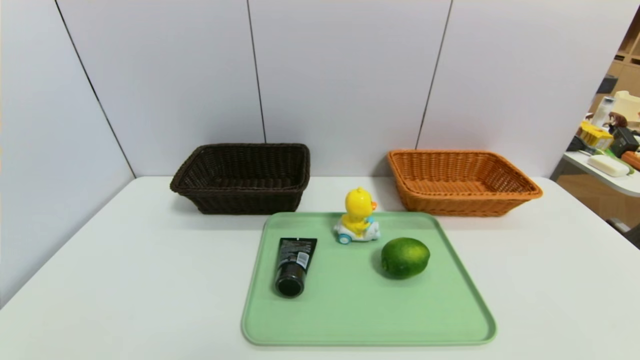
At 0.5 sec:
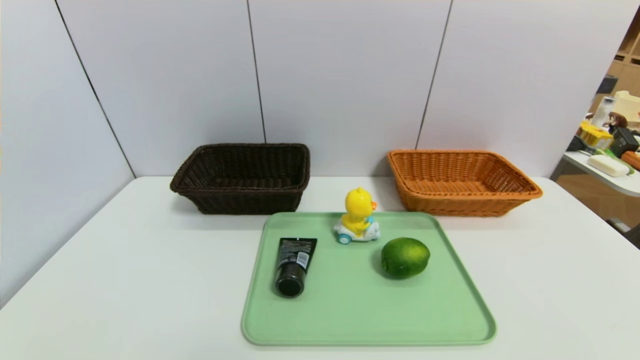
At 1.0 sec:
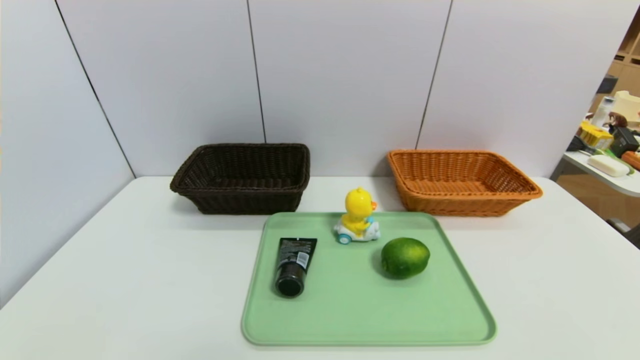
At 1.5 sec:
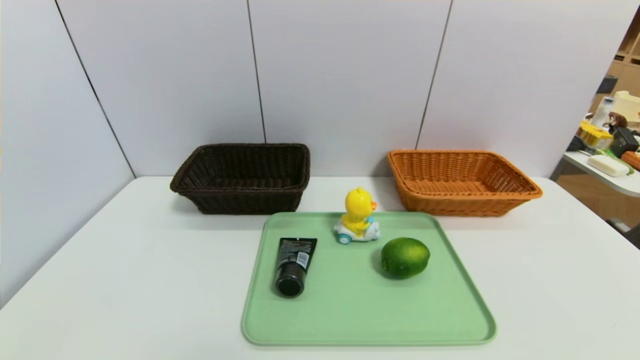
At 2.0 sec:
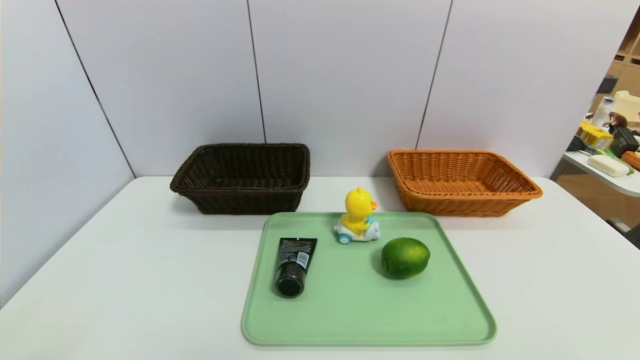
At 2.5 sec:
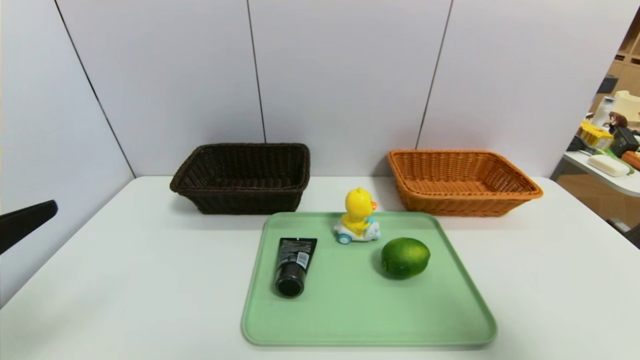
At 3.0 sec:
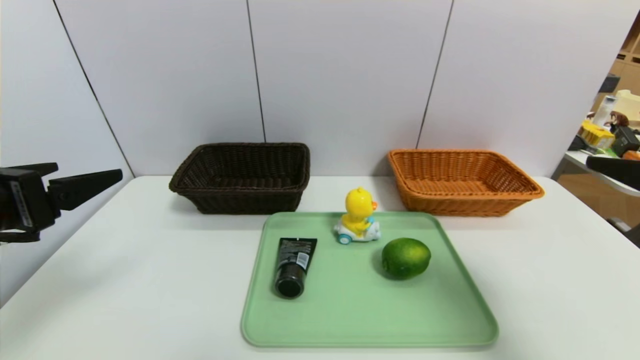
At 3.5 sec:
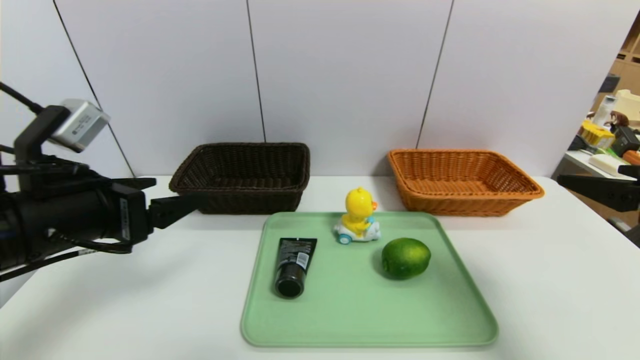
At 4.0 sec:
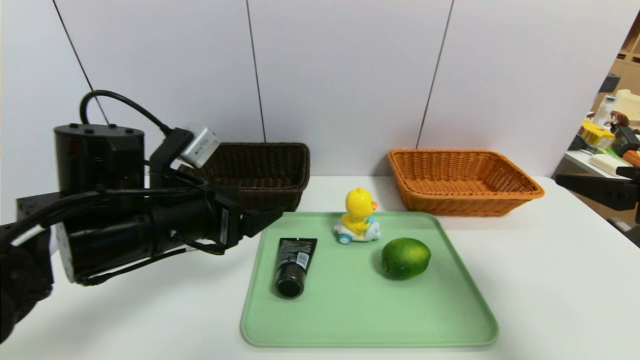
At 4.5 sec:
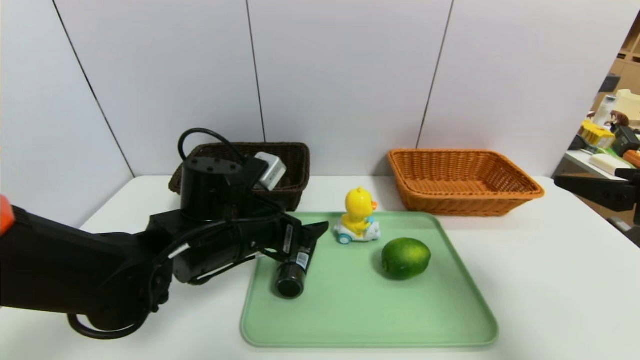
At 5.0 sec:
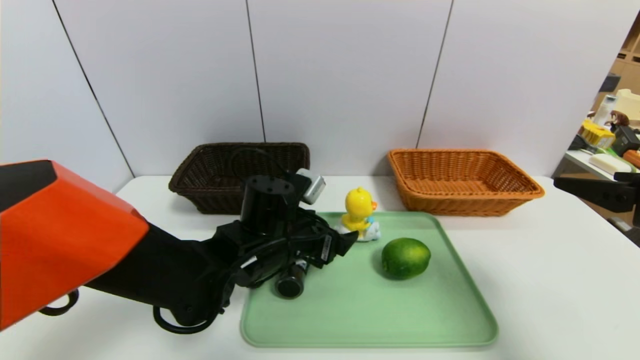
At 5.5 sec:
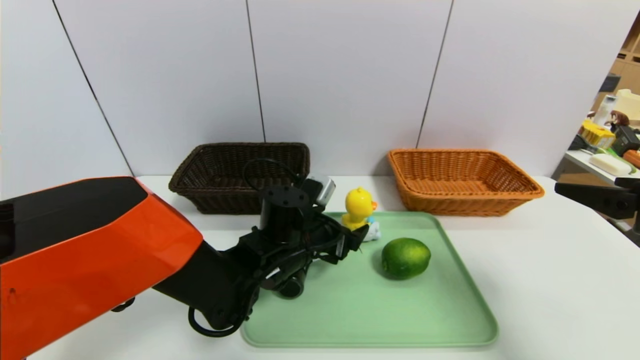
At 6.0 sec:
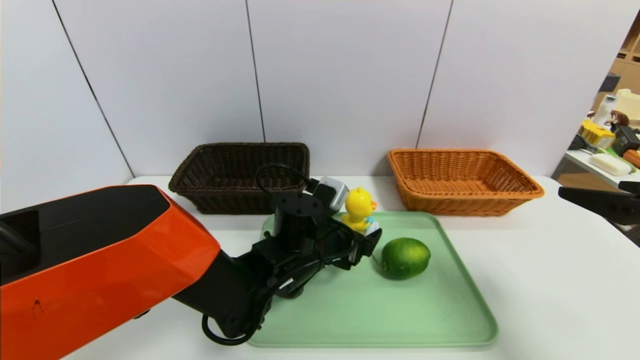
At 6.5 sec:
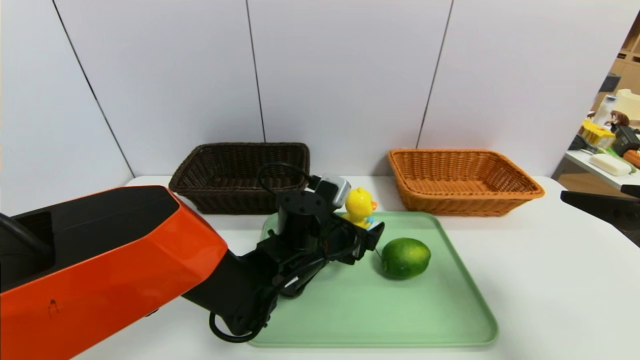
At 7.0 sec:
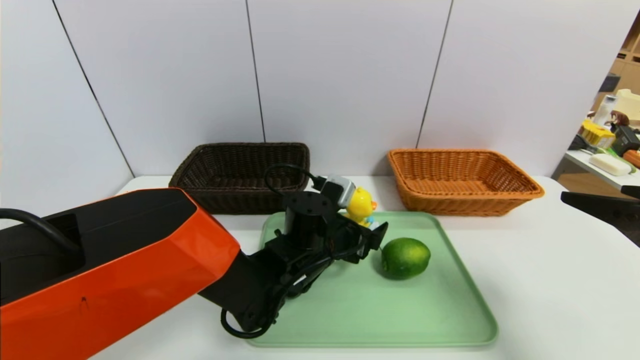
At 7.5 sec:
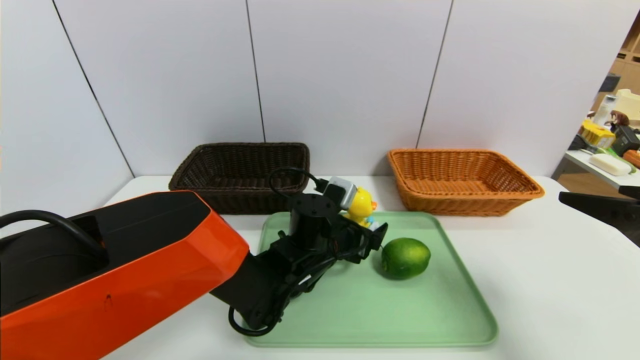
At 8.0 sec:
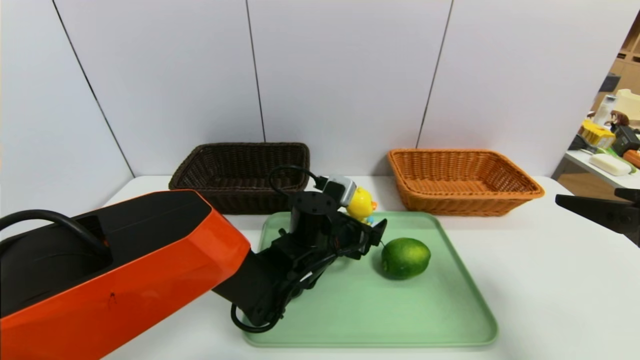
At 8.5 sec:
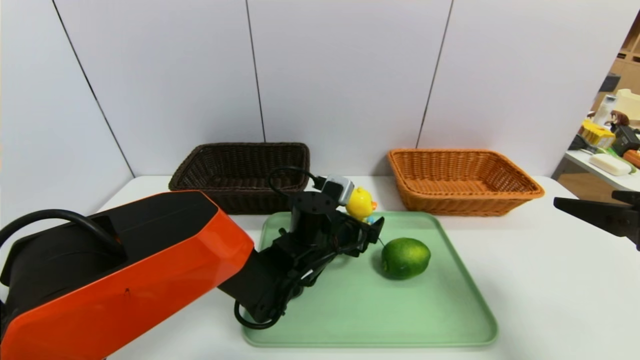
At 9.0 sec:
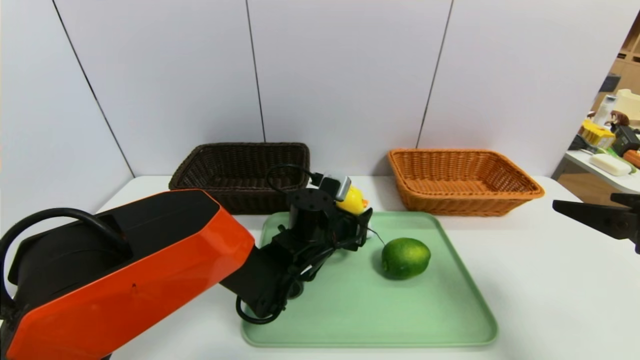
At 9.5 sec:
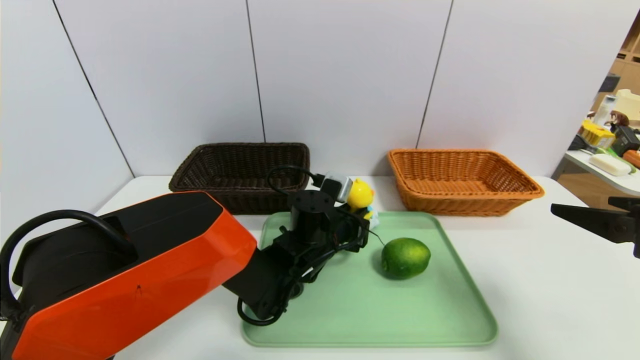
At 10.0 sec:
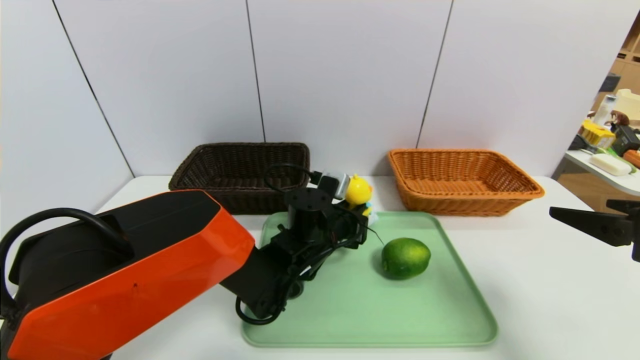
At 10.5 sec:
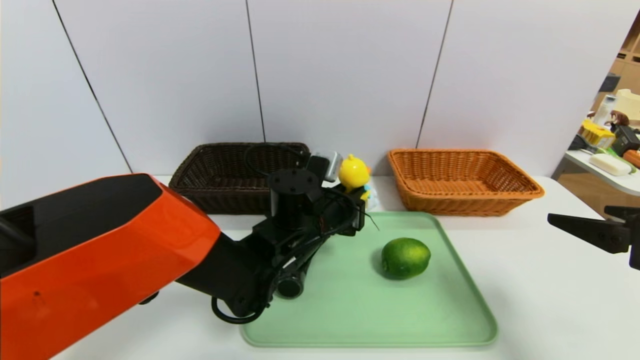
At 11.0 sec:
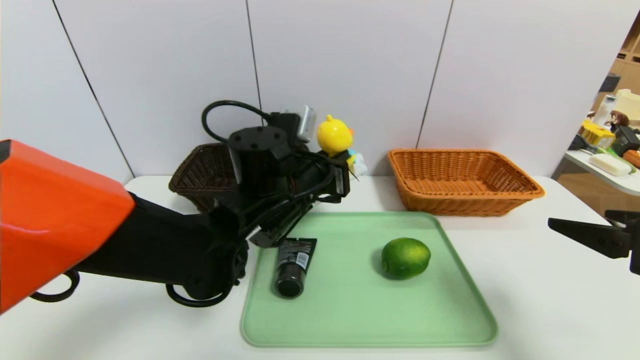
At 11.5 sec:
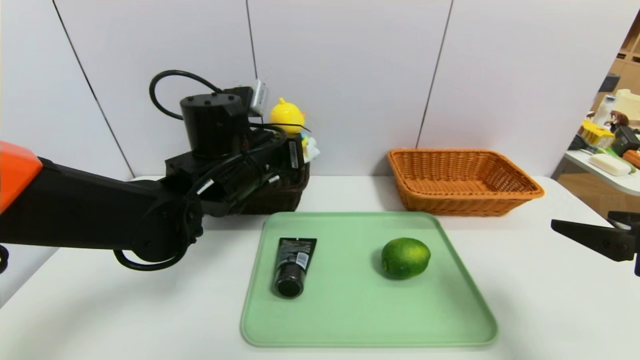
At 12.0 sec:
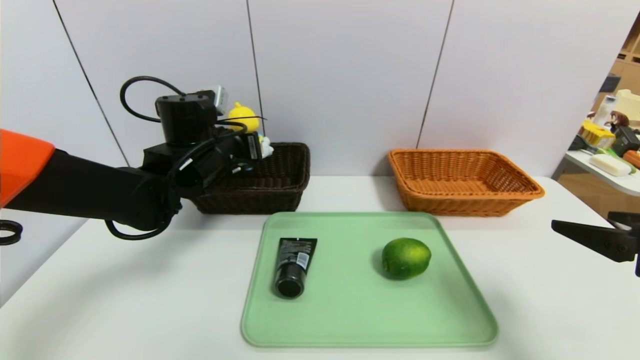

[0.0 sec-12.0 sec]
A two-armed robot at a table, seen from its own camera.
Task of the whole recording: place the food in the right basket with the right gripper, and place the non food items in the left basket with the left gripper.
2.0 sec to 4.0 sec: The right gripper heads forward, covering approximately 15 cm. The left gripper goes some 25 cm forward and to the right.
4.0 sec to 6.0 sec: The left gripper moves to the right, downward and forward, approximately 20 cm.
6.0 sec to 8.0 sec: The grippers stay close to where they were, moving slightly.
8.0 sec to 10.0 sec: The left gripper closes up.
10.0 sec to 12.0 sec: The left gripper shifts about 20 cm to the left and upward.

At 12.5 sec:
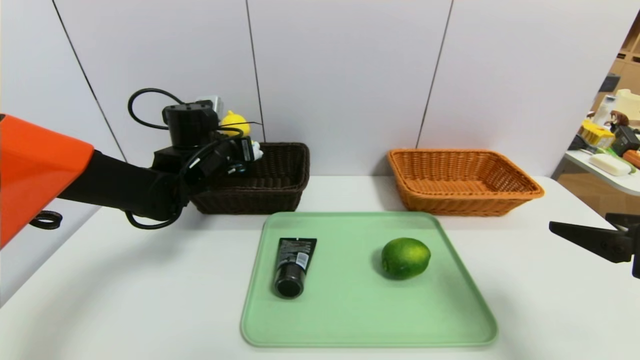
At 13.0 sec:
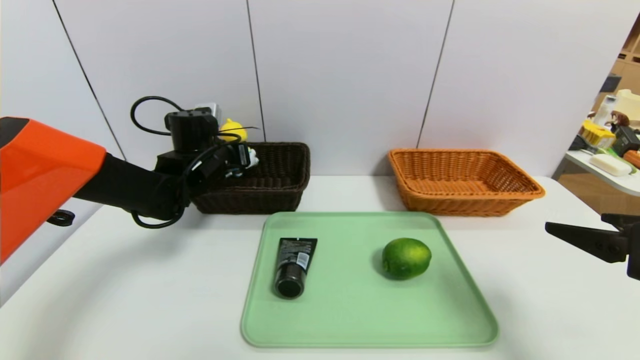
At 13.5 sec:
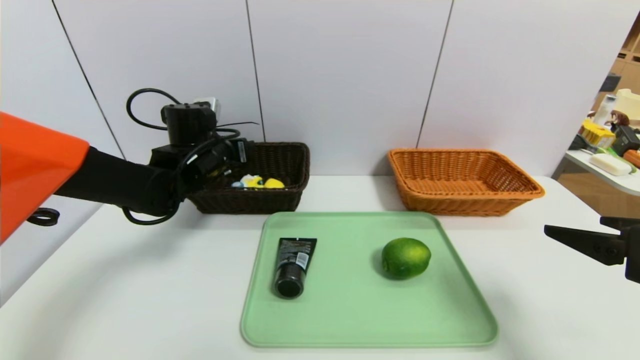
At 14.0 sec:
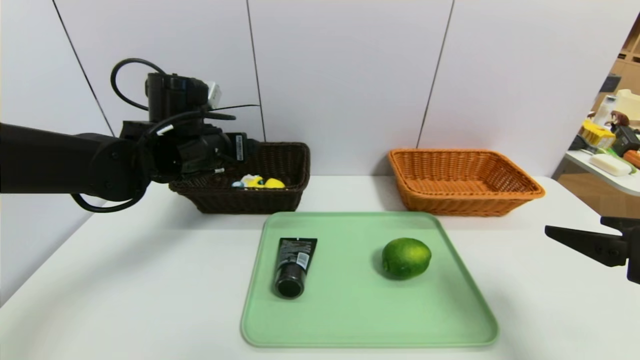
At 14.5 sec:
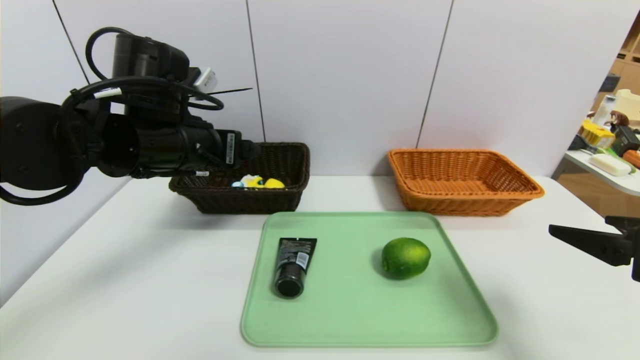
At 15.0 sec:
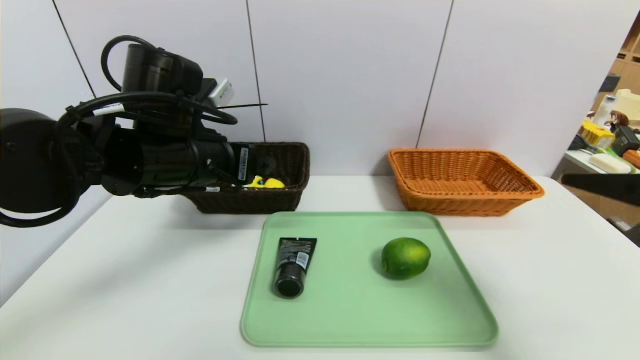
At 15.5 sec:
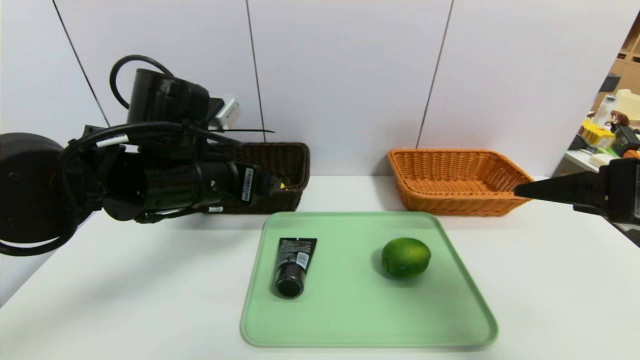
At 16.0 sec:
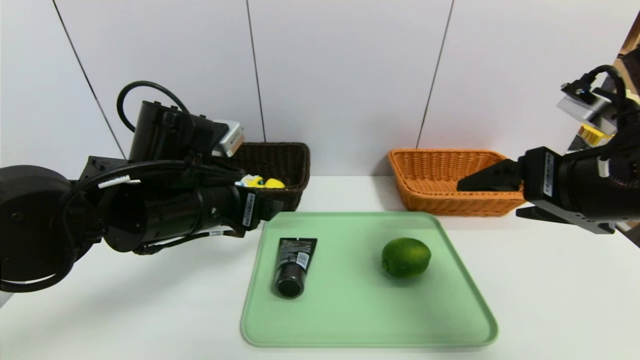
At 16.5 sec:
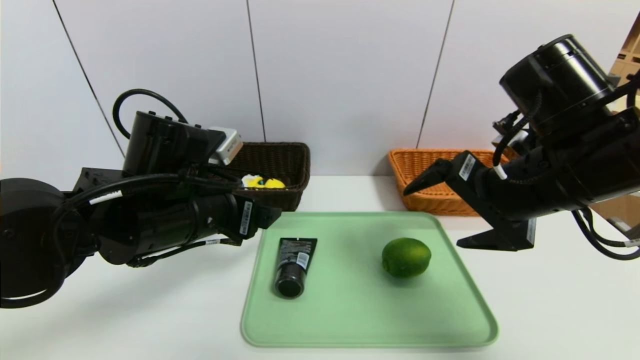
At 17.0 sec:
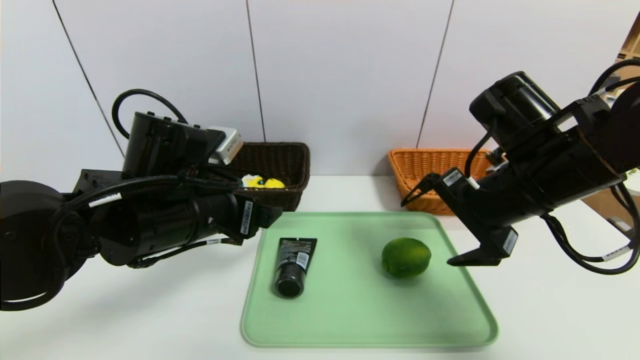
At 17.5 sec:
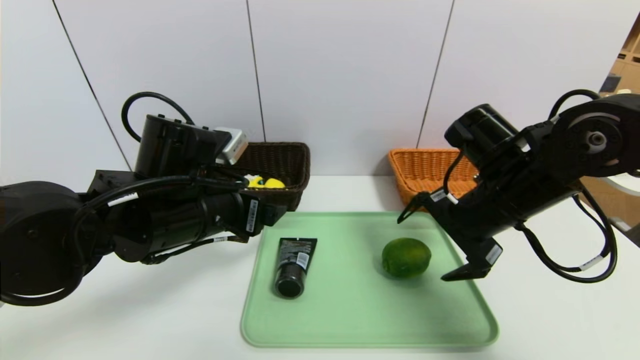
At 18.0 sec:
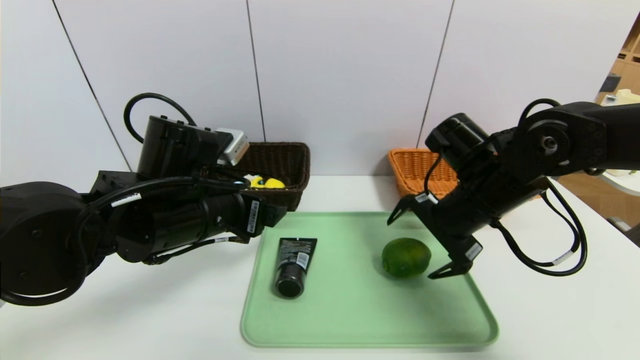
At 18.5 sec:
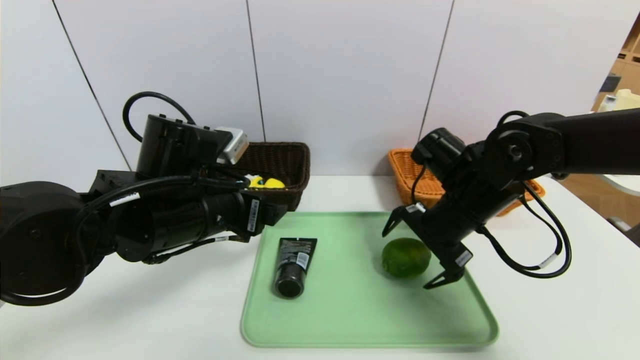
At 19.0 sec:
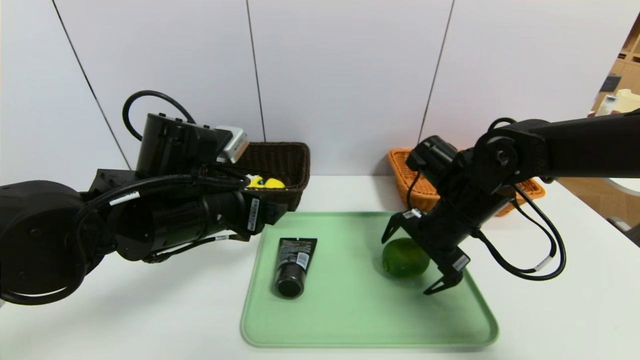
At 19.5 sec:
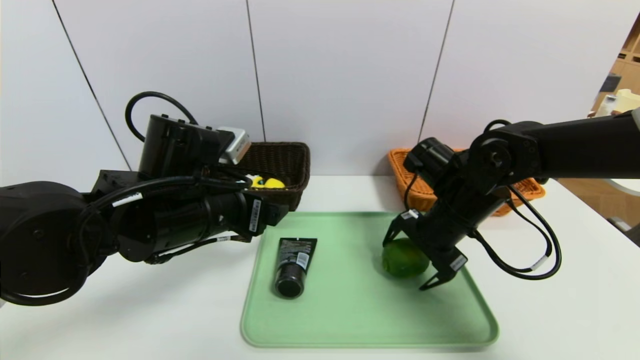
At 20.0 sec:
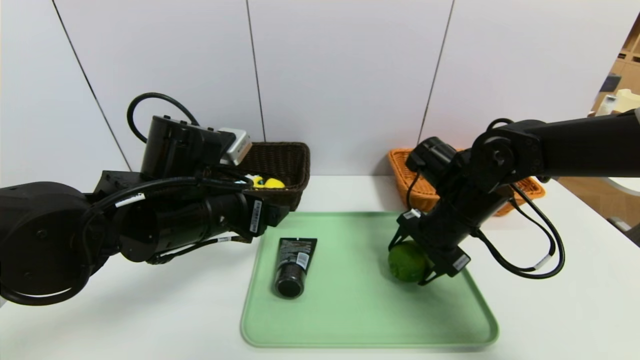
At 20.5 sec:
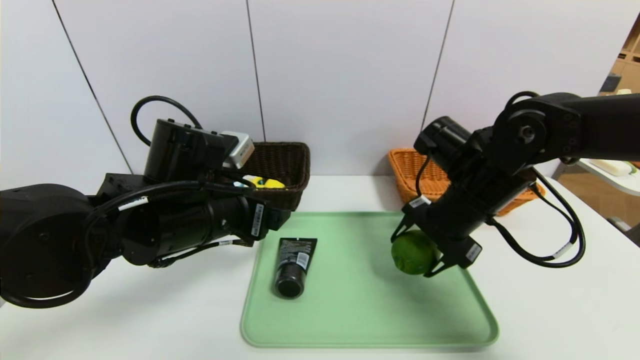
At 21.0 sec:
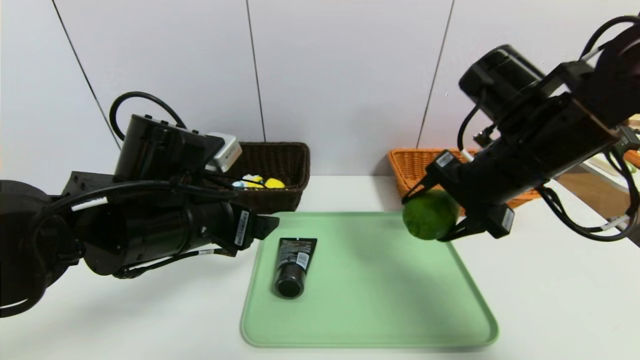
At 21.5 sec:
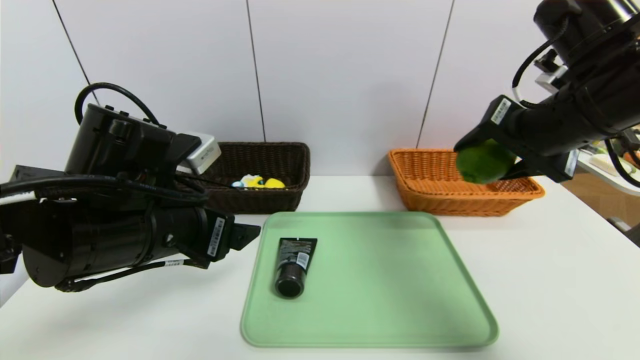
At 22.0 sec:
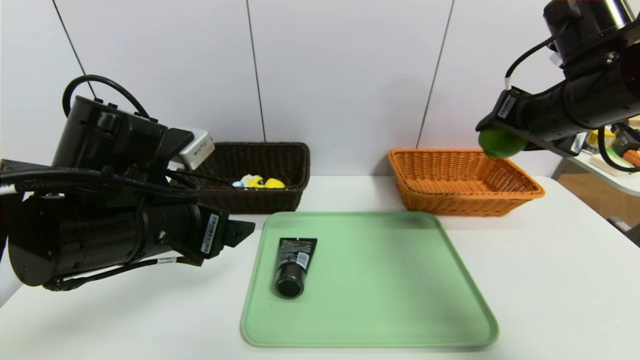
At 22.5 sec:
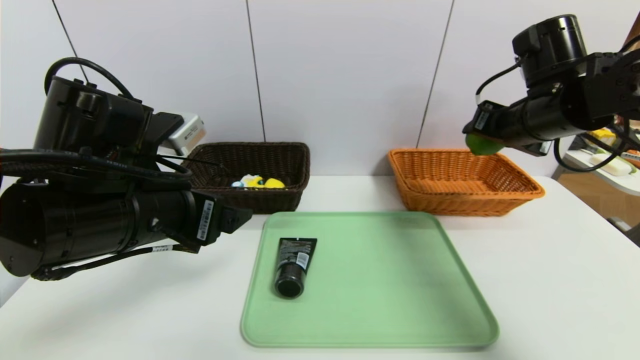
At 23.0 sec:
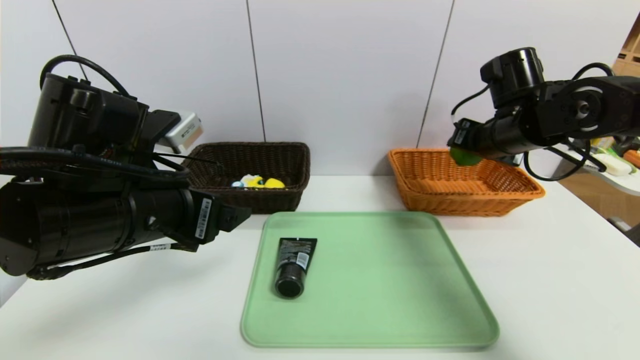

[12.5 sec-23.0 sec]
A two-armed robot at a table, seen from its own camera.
Task of the whole recording: place the food in the right basket with the right gripper, and place the non food items in the left basket with the left gripper.
12.5 sec to 14.5 sec: The left gripper is displaced backward and upward by approximately 15 cm, and opens.
14.5 sec to 16.5 sec: The left gripper is displaced downward and backward by about 10 cm. Meanwhile the right gripper moves to the left and forward, some 15 cm.
16.5 sec to 19.0 sec: The right gripper is displaced downward and forward by roughly 15 cm.
19.0 sec to 21.0 sec: The right gripper shifts some 10 cm upward, and closes its fingers.
21.0 sec to 23.0 sec: The left gripper ends up about 5 cm from where it was. The right gripper travels forward and to the right by some 10 cm.
